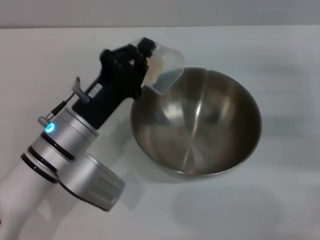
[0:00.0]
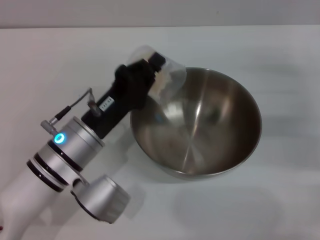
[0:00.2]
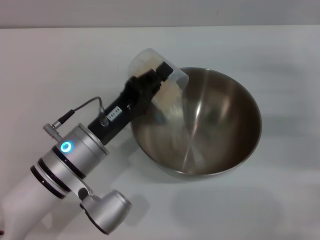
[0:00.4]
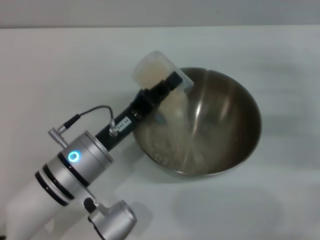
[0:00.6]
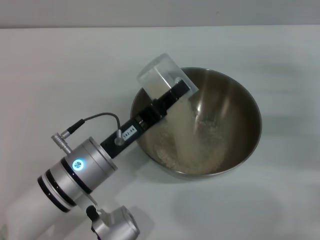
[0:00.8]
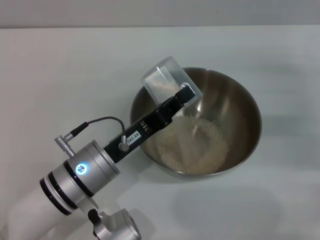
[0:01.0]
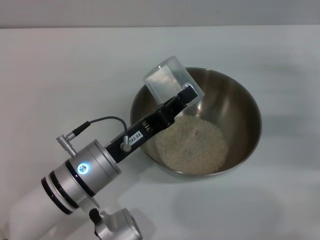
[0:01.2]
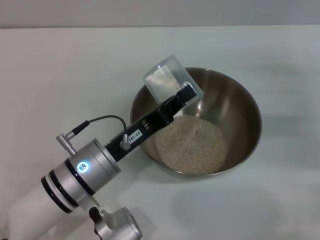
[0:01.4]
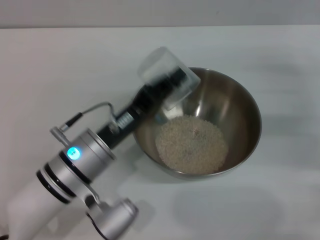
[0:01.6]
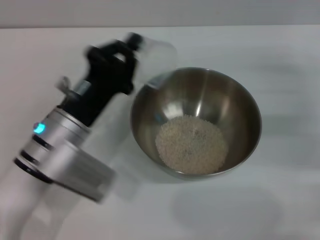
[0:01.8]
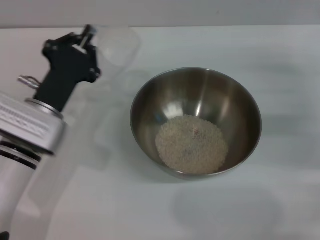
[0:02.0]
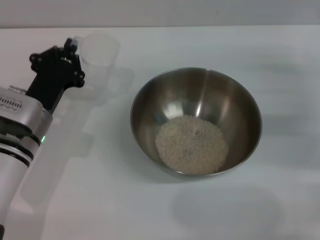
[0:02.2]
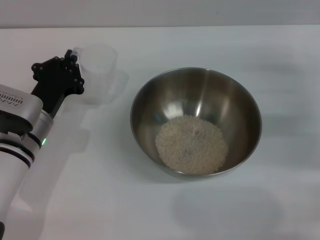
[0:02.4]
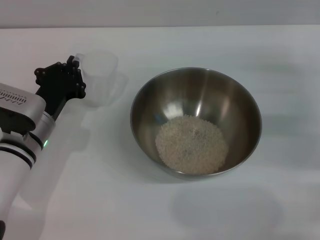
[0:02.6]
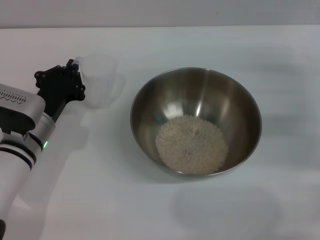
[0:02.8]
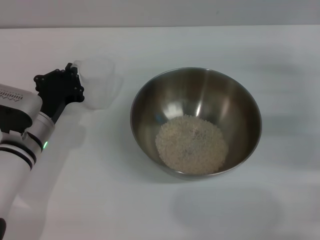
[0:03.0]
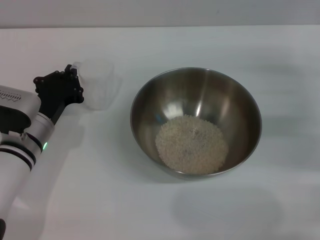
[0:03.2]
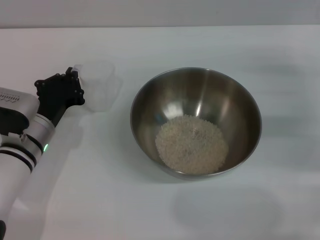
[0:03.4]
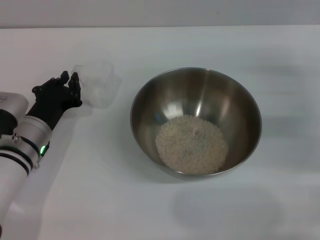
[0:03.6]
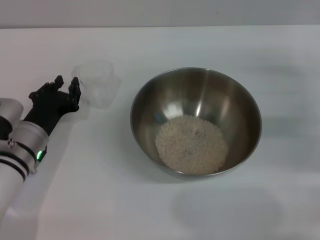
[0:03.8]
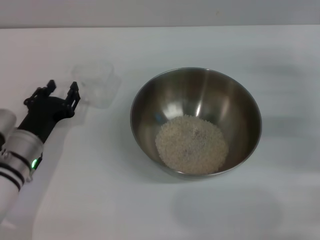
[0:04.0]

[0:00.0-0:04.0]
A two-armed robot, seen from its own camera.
Task of the whole recording: Place the bowl in the middle of the table with one hand and pour the rice from the grain cup into it with the other hand.
Step, 0:00.0 to 0:01.8: Pour the rice from the cup into the bowl with the left gripper.
Step, 0:02.2 to 0:04.0: Place the cup on the table with the left gripper.
0:01.4 to 0:02.6: The left gripper travels to the left and forward by approximately 10 cm.
0:02.6 to 0:04.0: The left gripper opens up.
